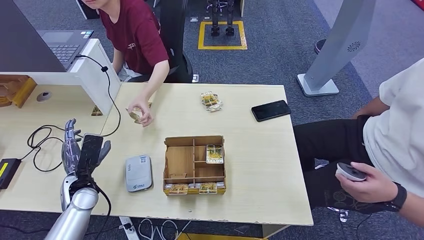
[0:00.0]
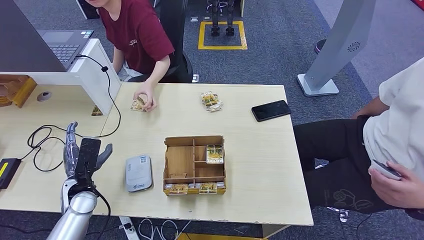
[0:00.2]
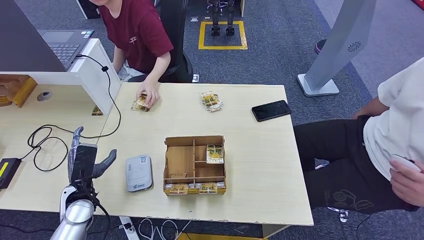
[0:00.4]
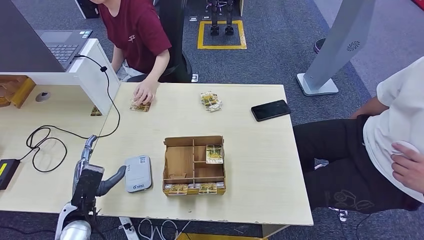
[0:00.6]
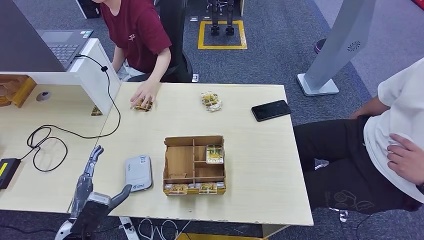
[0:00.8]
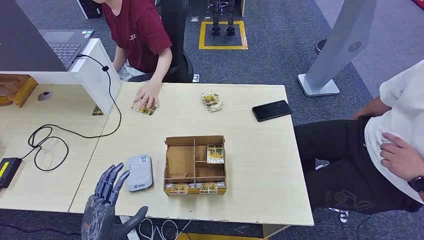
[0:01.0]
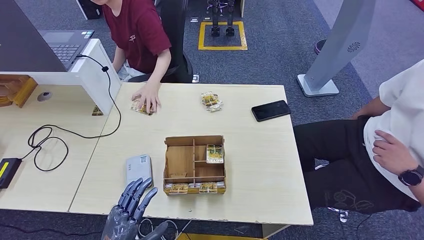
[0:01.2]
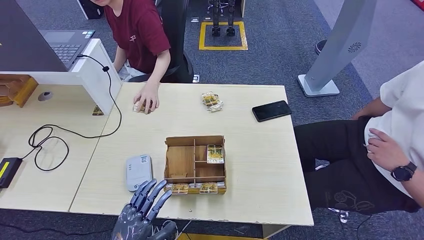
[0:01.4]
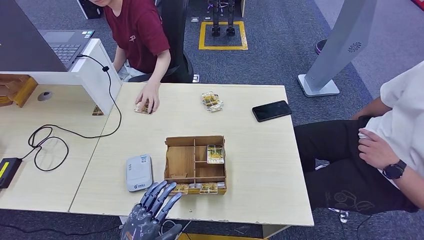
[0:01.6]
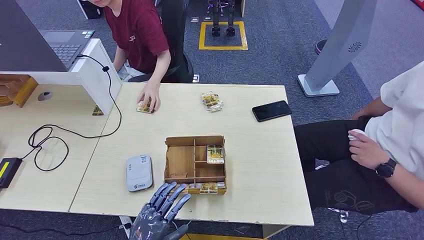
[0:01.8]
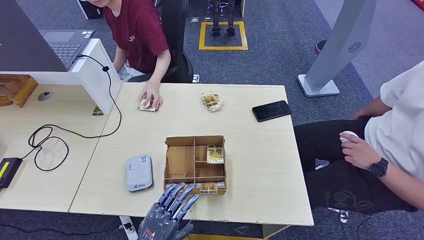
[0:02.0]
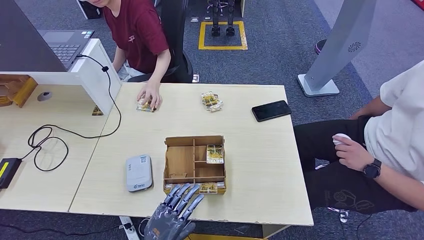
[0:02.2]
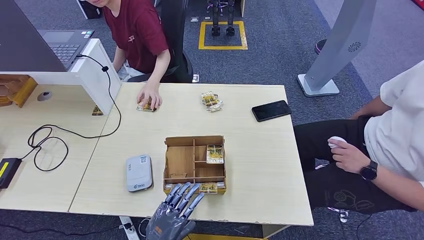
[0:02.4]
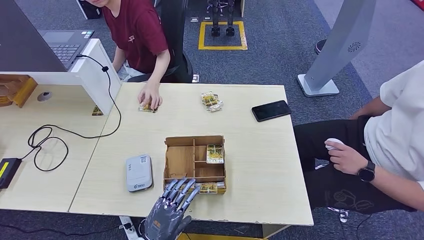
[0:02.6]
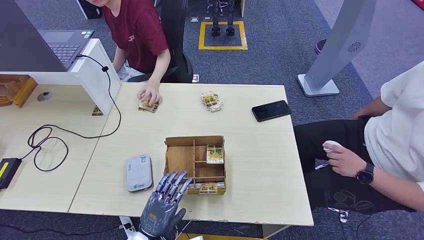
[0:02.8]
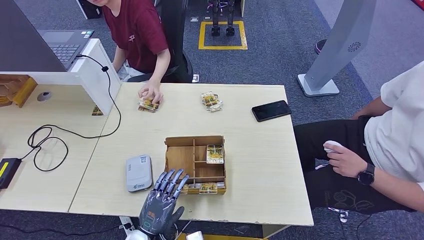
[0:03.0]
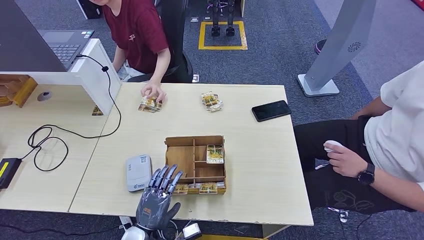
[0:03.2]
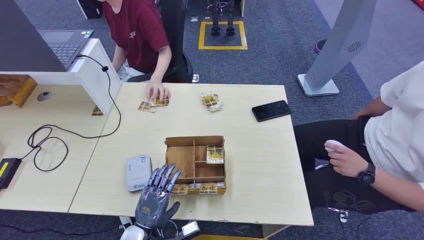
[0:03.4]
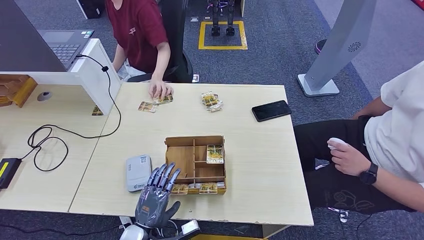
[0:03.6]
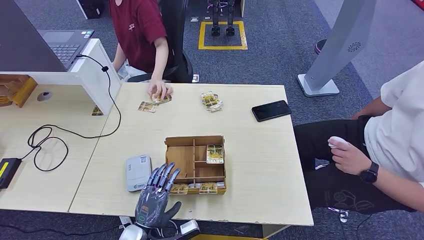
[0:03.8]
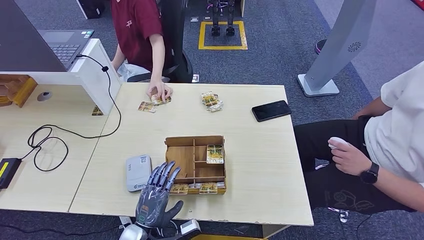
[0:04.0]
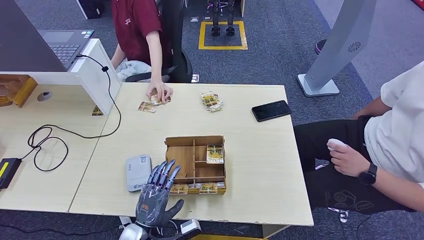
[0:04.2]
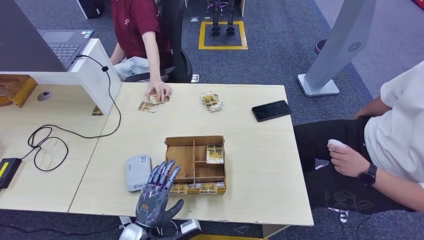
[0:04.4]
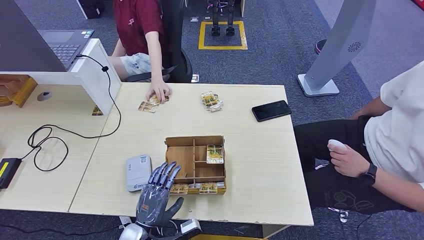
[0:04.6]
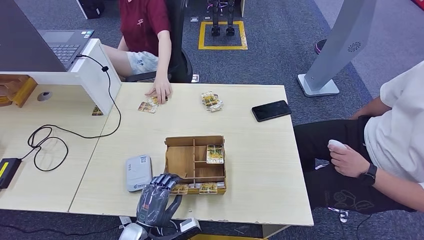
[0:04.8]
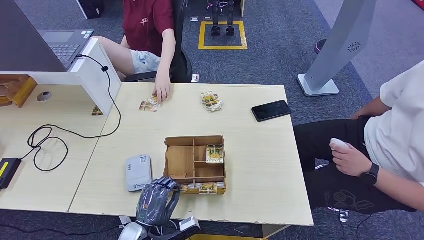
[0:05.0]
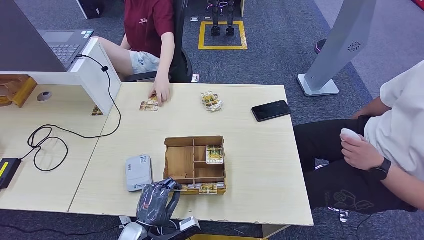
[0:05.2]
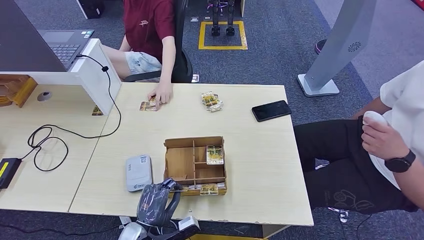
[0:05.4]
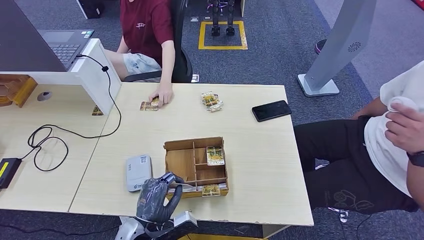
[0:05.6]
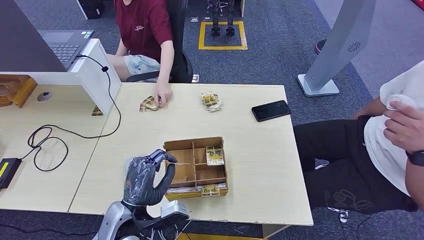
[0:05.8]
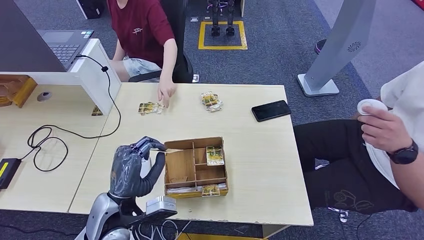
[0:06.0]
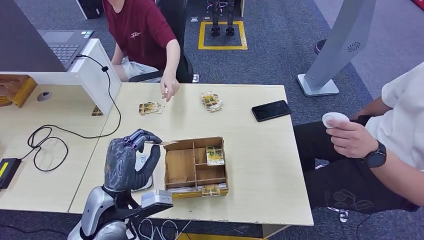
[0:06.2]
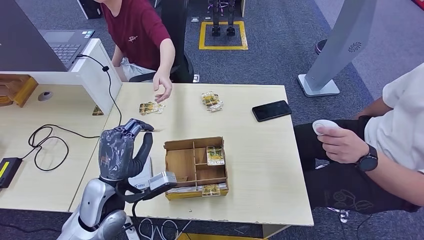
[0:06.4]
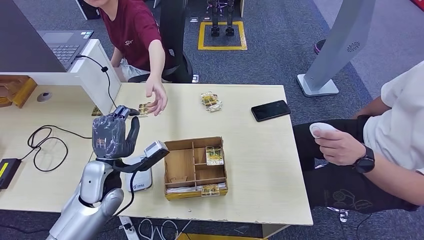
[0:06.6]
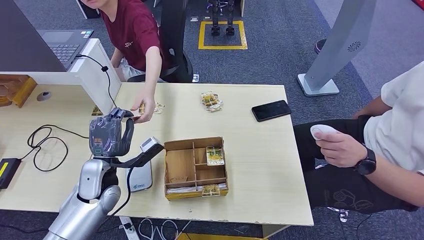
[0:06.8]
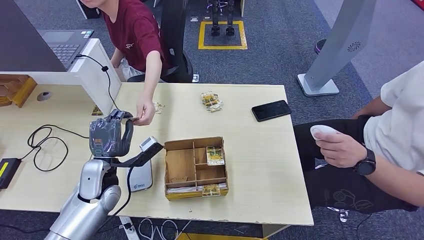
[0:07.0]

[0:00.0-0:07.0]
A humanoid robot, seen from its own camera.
Step, 0:03.4 to 0:06.4: Pick up the room key from the key card box.
Step, 0:06.6 to 0:07.0: Hand the room key to the person.
0:00.0 to 0:01.4: The left hand is displaced backward and to the right by about 20 cm.
0:01.4 to 0:02.8: The left hand shifts some 5 cm downward.
0:02.8 to 0:04.2: The hands stay close to where they were, moving slightly.
0:04.2 to 0:05.6: The hands stay close to where they were, moving slightly.
0:05.6 to 0:07.0: The left hand is displaced forward, upward and to the left by roughly 20 cm.

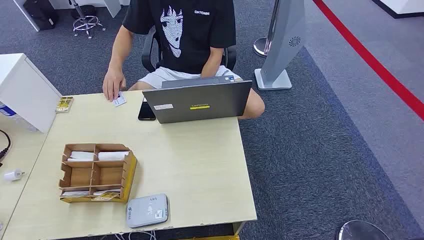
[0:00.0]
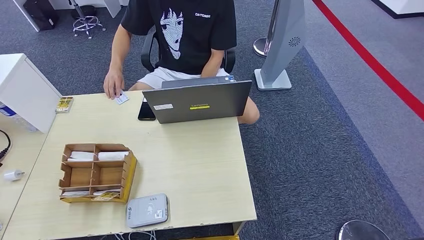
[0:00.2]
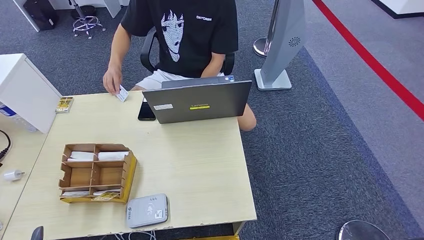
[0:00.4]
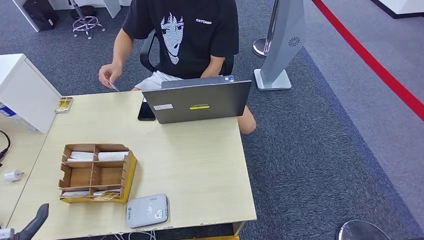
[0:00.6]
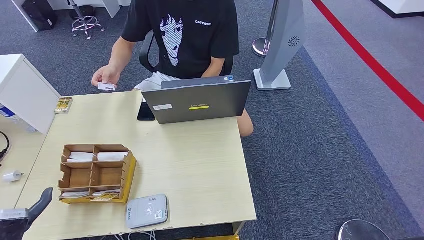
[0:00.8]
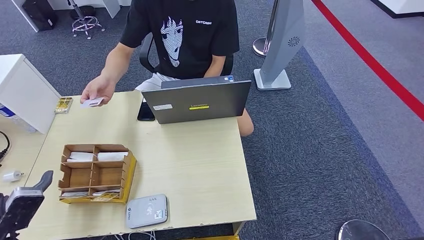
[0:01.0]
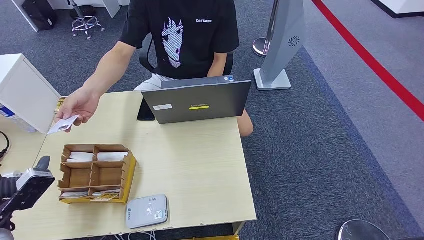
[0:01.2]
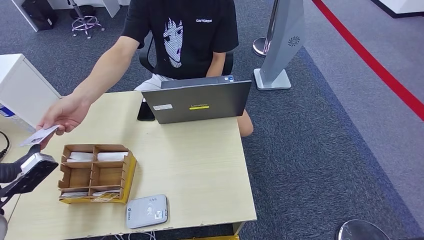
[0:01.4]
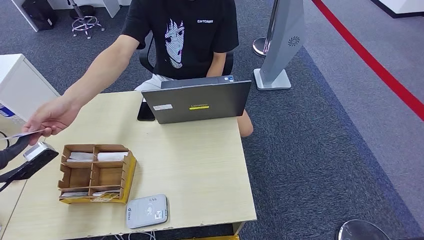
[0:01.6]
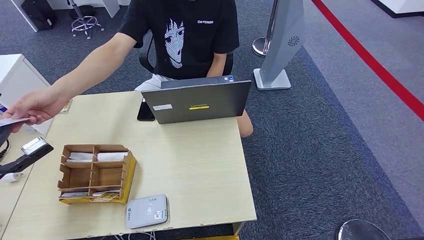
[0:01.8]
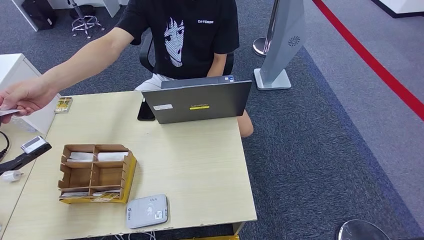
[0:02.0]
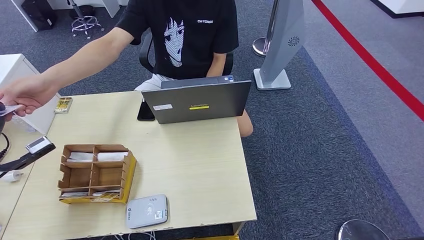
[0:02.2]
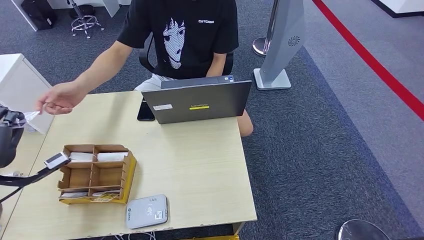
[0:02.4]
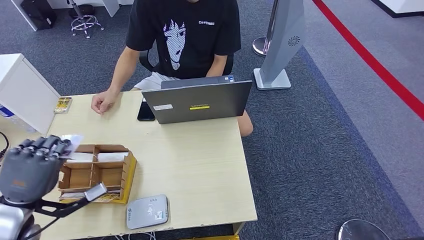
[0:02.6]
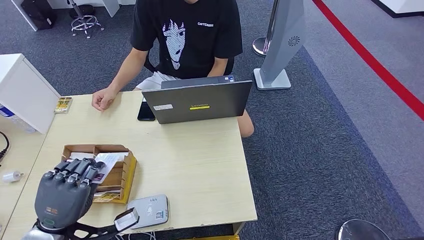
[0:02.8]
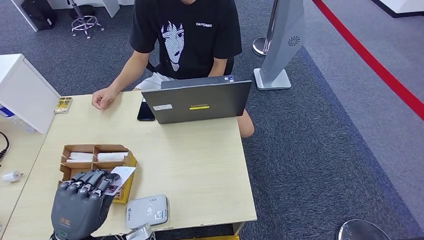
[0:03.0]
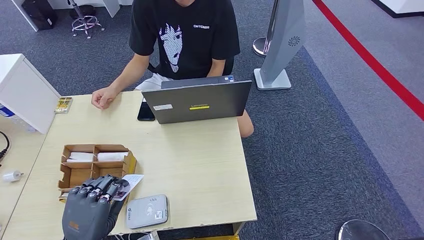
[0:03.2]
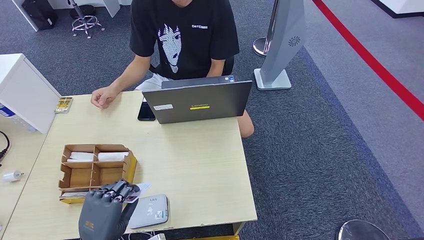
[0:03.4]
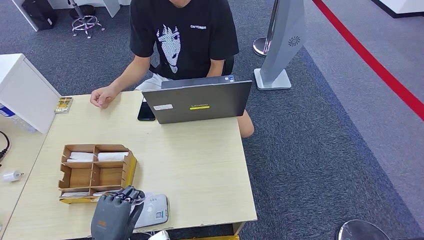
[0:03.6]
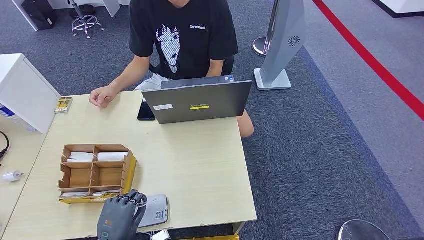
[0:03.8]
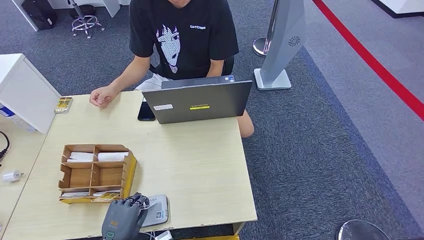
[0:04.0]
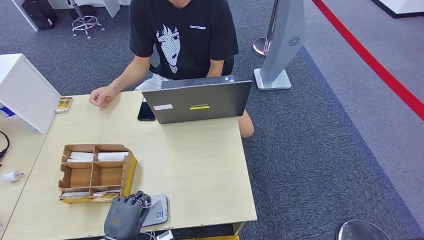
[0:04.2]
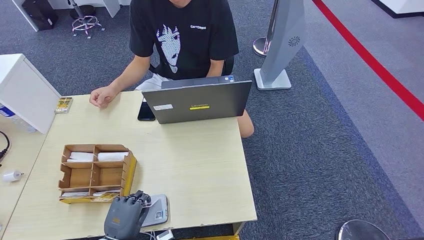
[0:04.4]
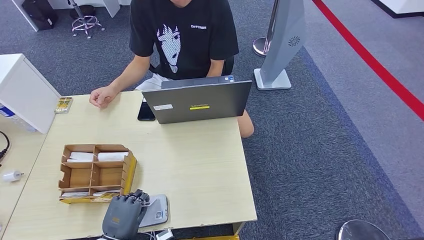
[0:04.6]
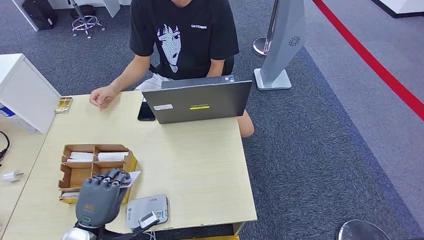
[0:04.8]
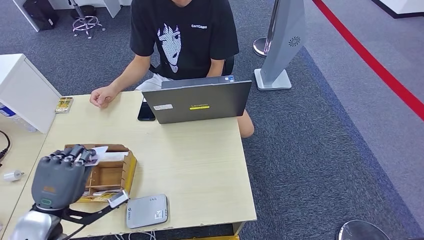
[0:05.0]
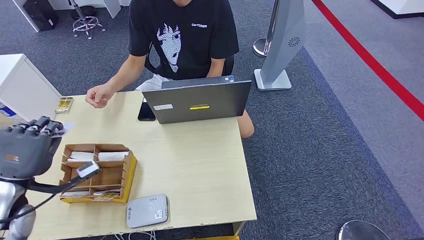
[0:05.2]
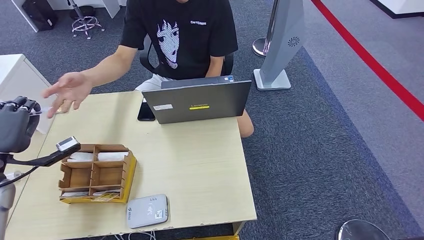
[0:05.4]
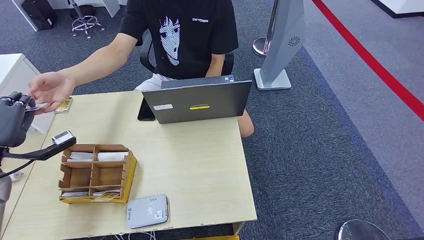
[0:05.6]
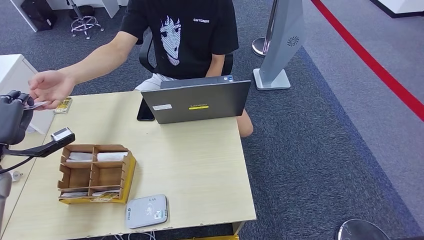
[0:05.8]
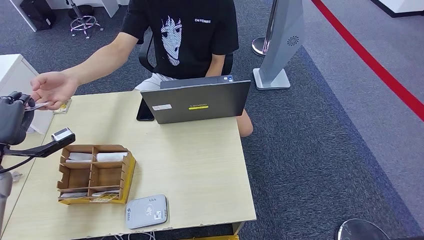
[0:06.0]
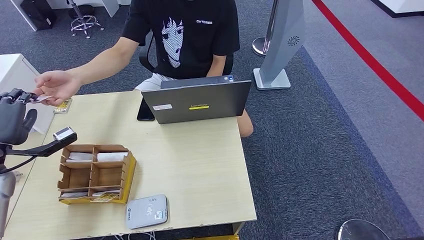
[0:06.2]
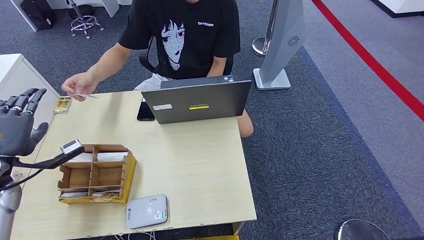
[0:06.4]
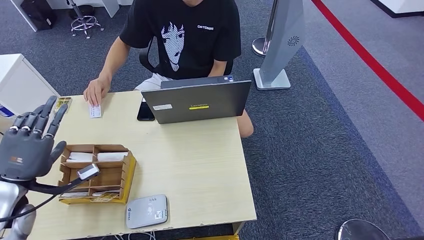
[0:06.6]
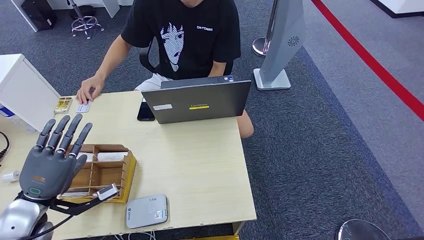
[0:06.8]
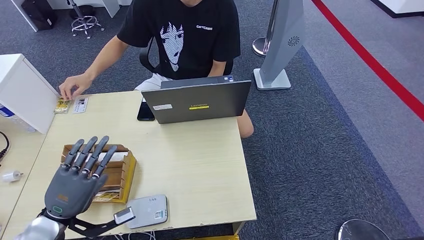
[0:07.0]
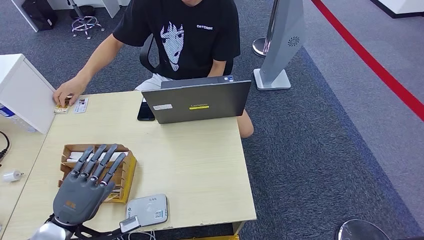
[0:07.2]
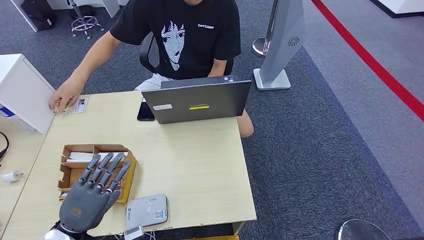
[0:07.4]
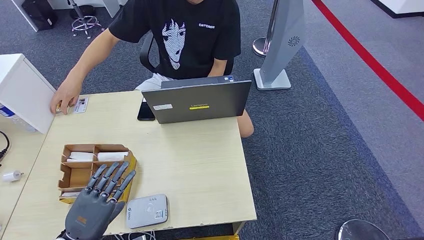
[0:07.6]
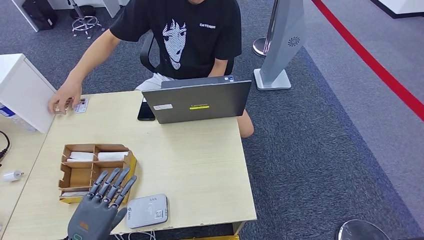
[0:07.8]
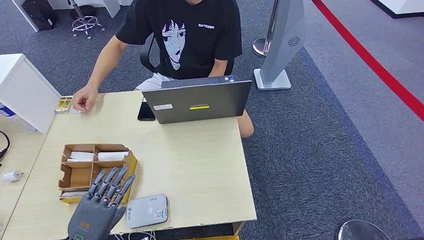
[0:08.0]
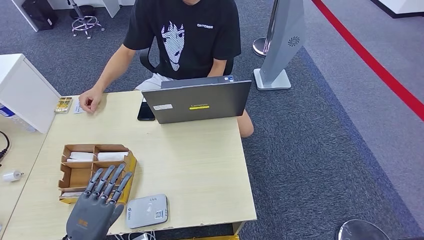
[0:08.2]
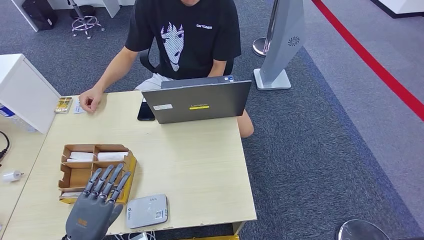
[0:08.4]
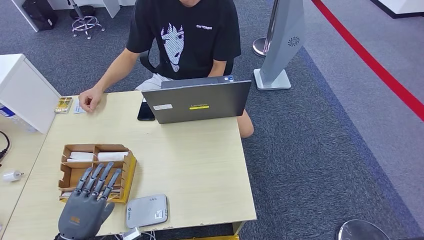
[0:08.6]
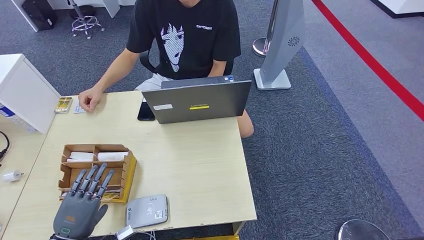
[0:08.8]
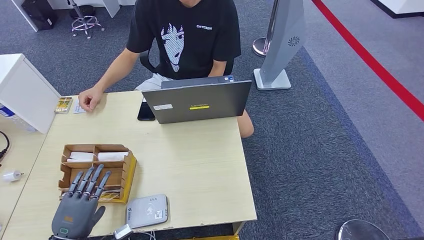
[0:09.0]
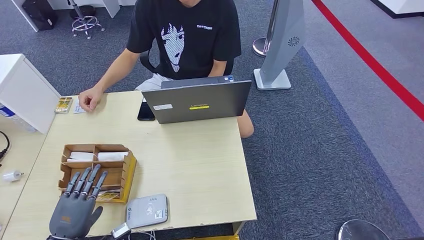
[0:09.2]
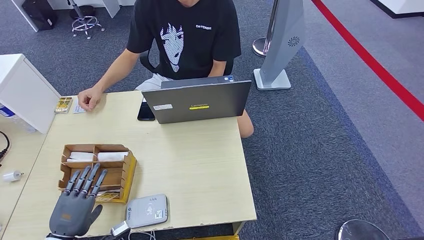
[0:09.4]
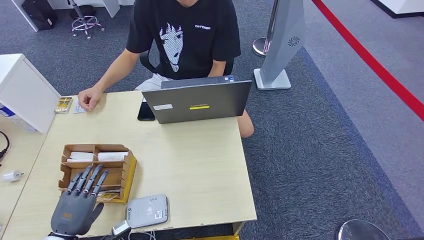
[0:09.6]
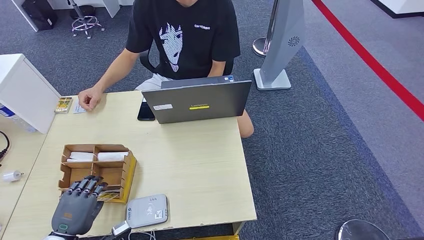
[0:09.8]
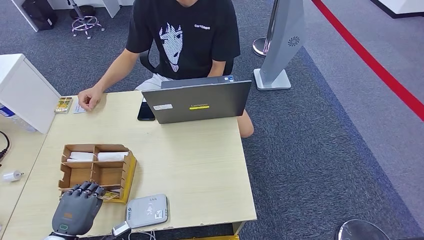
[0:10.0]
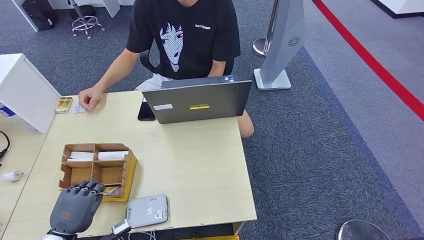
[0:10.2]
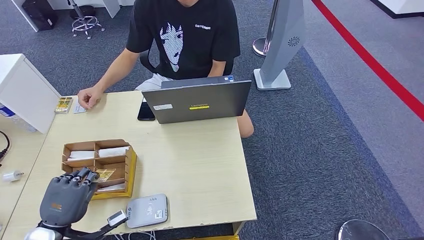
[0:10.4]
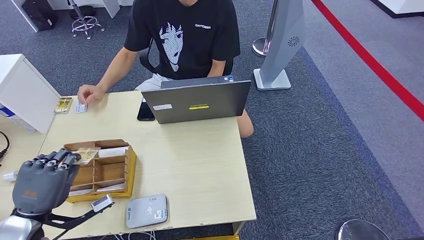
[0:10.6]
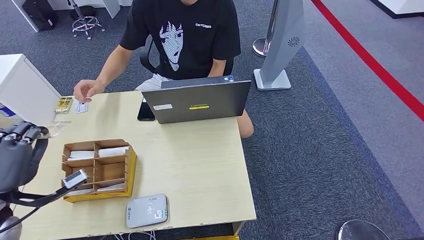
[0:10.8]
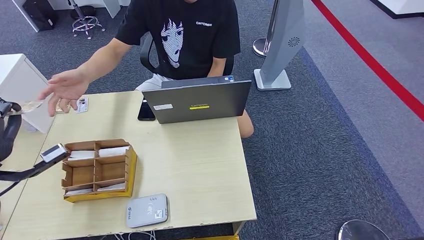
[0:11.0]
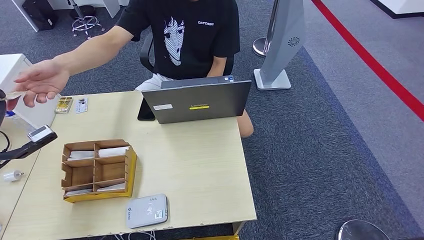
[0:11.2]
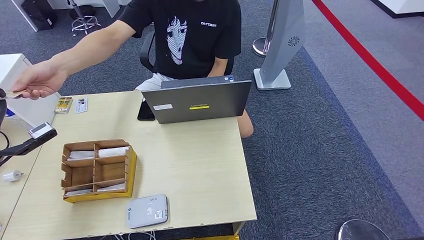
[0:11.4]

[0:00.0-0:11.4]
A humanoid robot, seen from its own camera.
Step, 0:00.0 to 0:02.2: Take the ID card from the person's hand.
Step, 0:02.6 to 0:04.4: Place the ID card on the card reader.
Step, 0:04.6 to 0:06.2: Hand the ID card to the person.
Step, 0:06.4 to 0:10.6: Pick up the room key from the key card box.
0:01.4 to 0:02.8: The left hand moves to the right and backward, about 15 cm.
0:02.8 to 0:04.2: The left hand goes approximately 15 cm downward and to the right.
0:04.2 to 0:05.6: The left hand is displaced upward, to the left and forward by about 35 cm.
0:05.6 to 0:07.2: The left hand shifts some 20 cm backward, to the right and downward.
0:07.2 to 0:08.6: The left hand shifts by approximately 5 cm.
0:08.6 to 0:10.0: The hands make only small movements.
0:10.0 to 0:11.4: The left hand travels upward, forward and to the left by roughly 30 cm.
